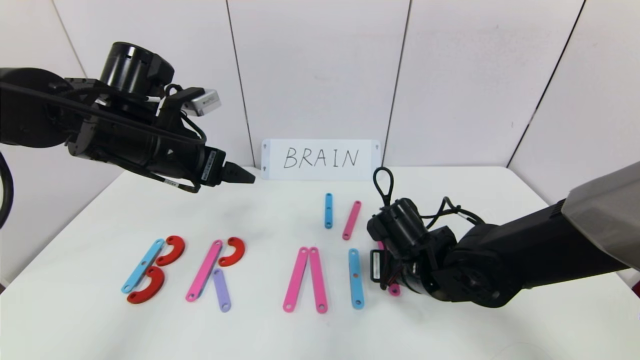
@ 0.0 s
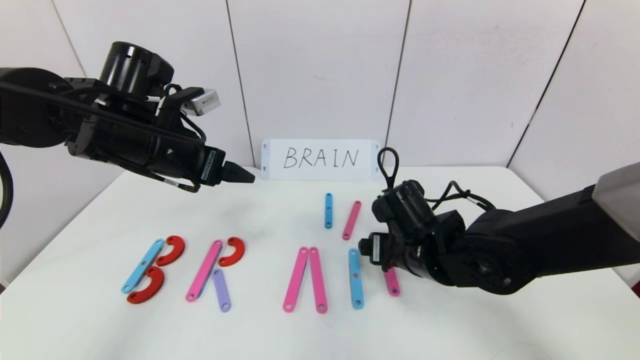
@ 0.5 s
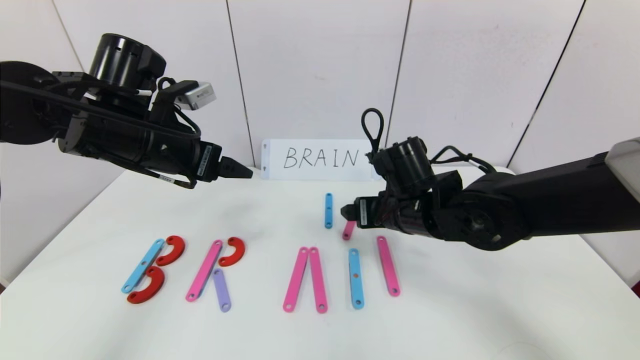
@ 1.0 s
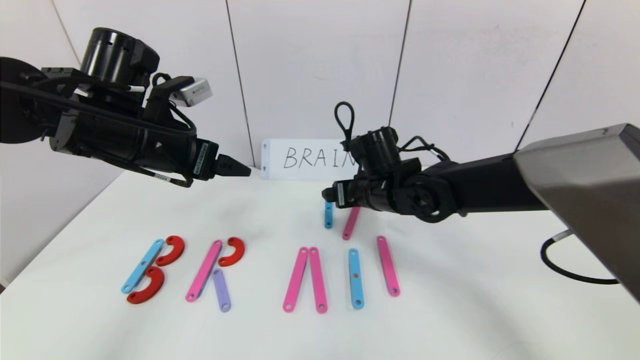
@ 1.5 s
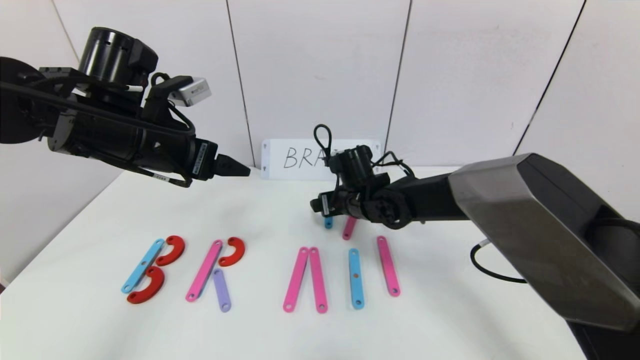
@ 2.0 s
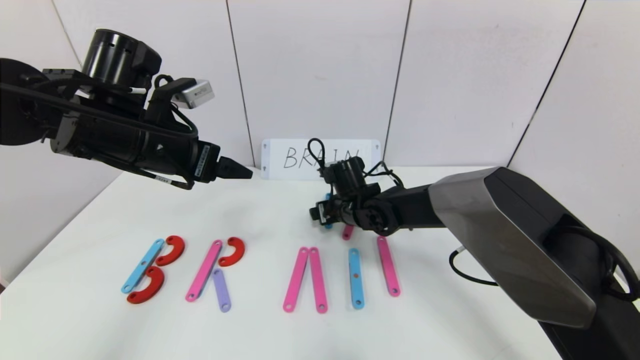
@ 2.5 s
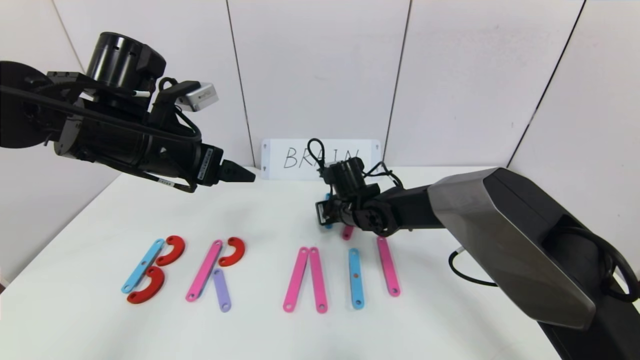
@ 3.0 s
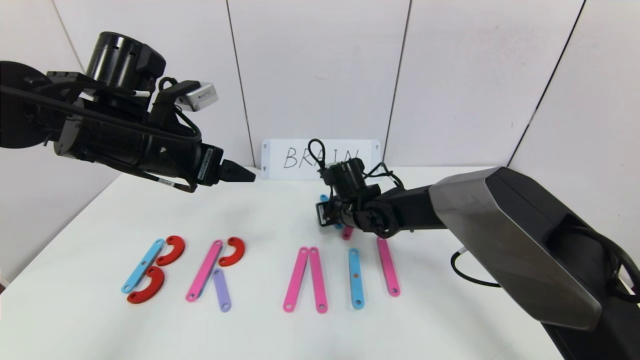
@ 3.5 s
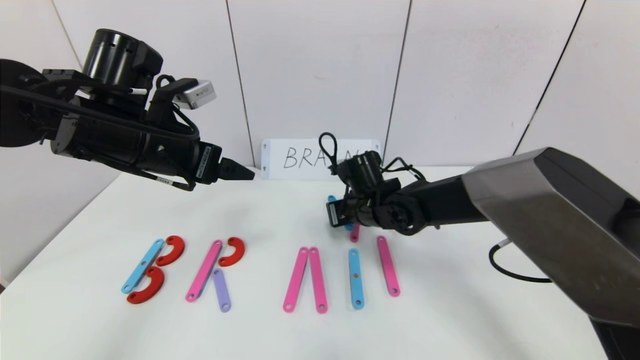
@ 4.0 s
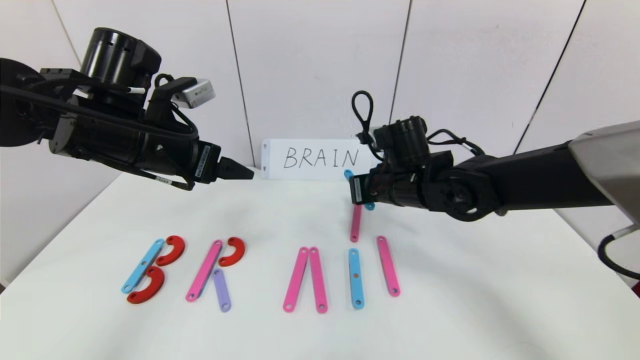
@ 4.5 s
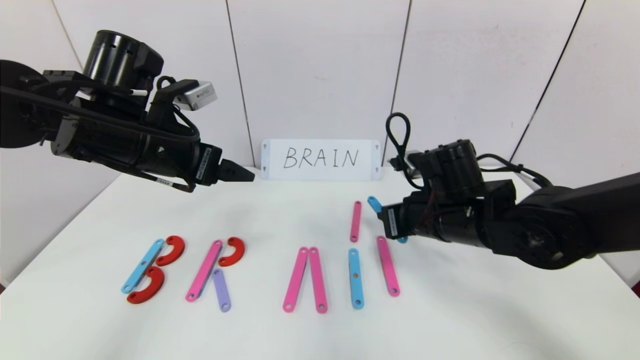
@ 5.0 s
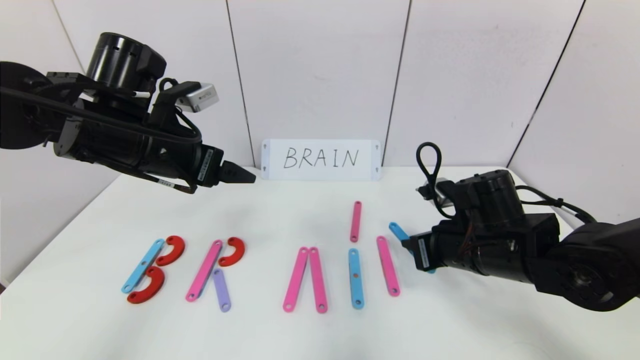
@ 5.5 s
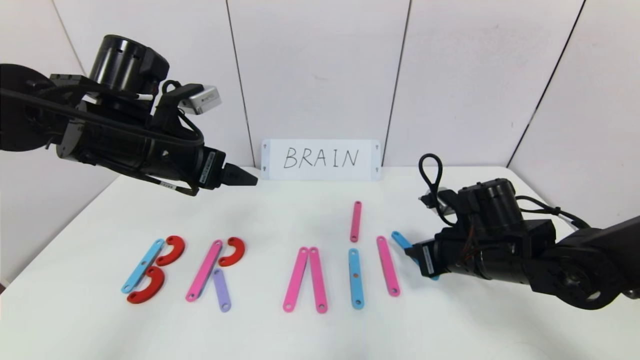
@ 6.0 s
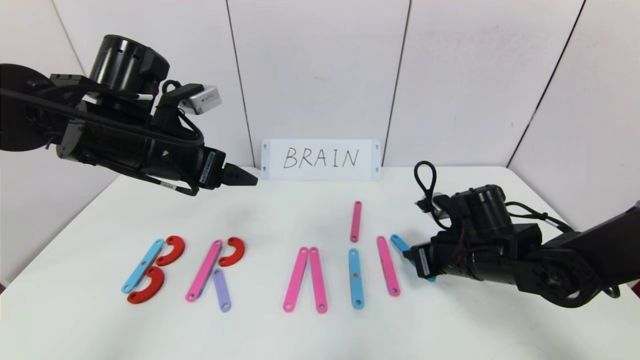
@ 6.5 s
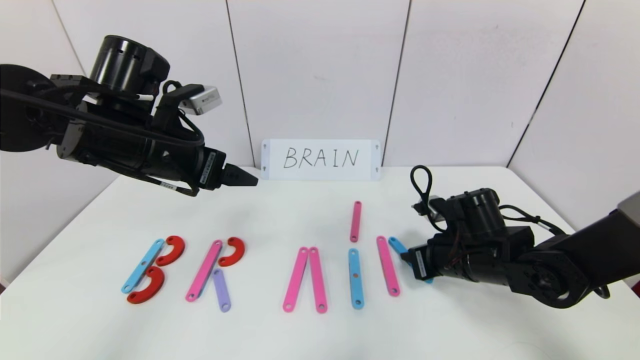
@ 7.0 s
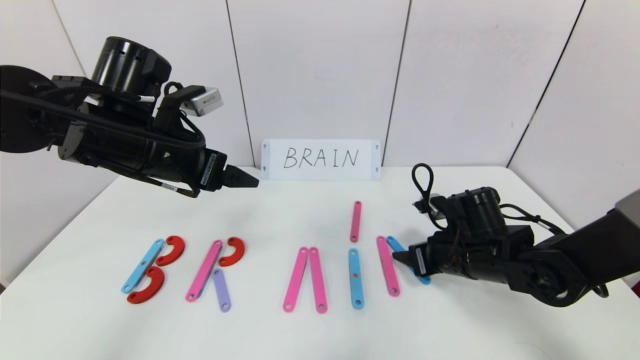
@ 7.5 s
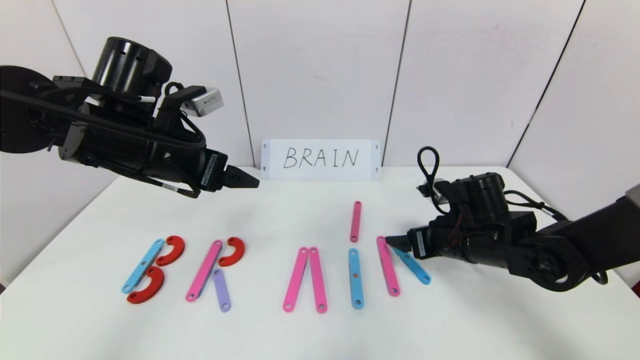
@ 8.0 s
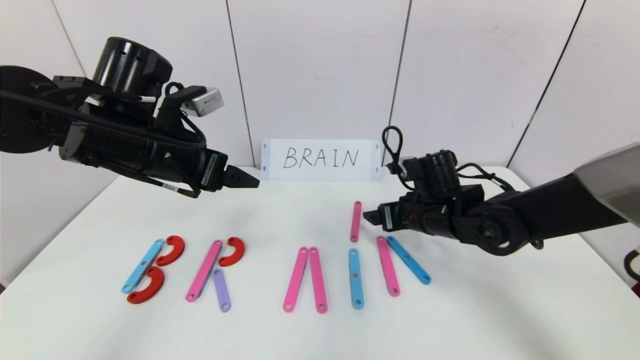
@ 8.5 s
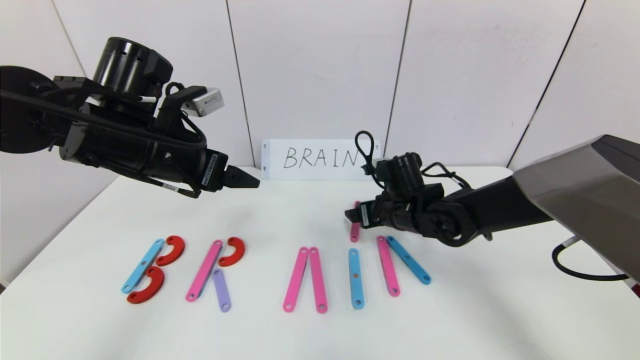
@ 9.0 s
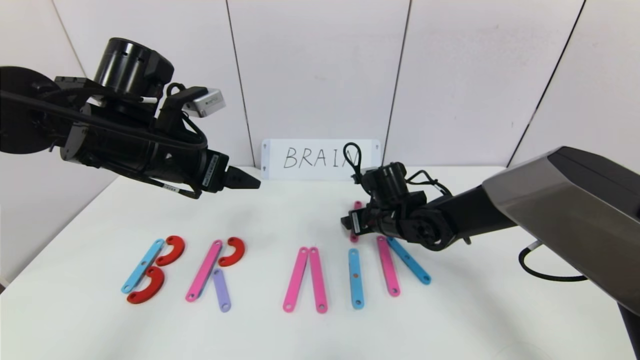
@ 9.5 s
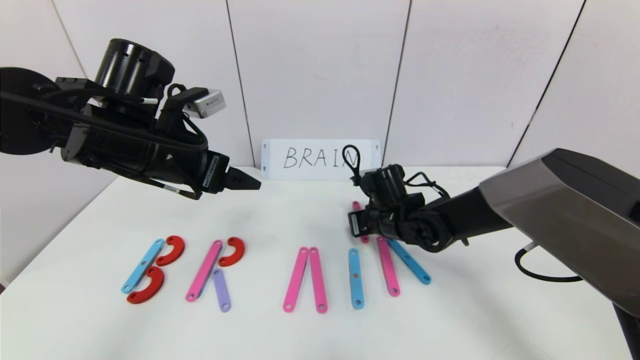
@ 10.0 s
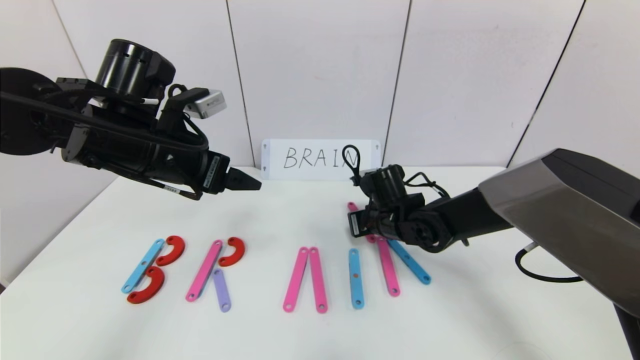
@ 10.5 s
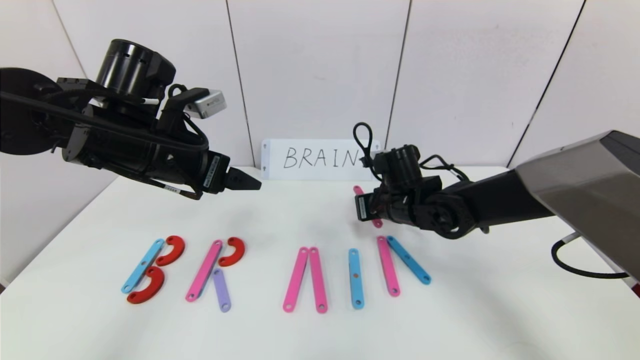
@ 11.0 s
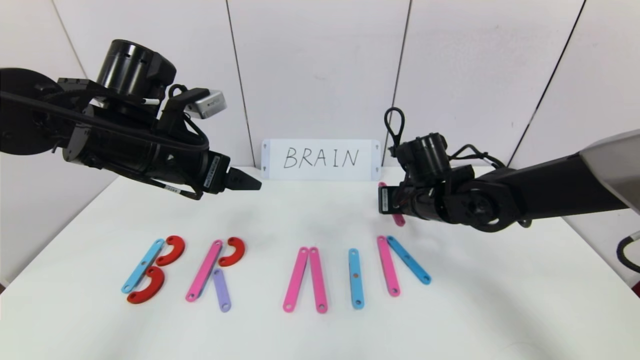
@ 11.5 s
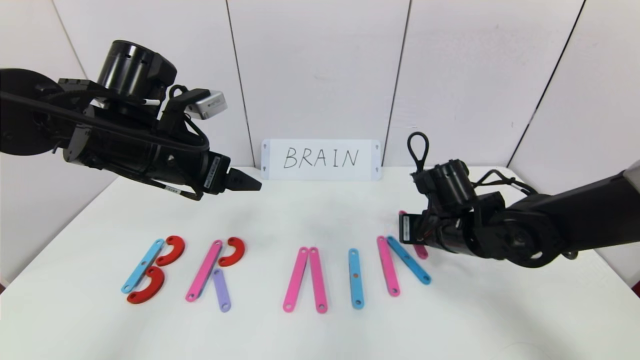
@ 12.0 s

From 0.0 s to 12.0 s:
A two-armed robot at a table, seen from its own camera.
Task of the whole recording: rearrange the word baai as brain.
From 0.0 s to 2.0 s: The right gripper travels forward and to the left by approximately 15 cm, and opens up.
From 2.0 s to 4.0 s: The right gripper closes up.
From 4.0 s to 6.0 s: The right gripper is displaced to the right and backward by approximately 15 cm.
From 6.0 s to 8.0 s: The right gripper opens up.
From 8.0 s to 10.0 s: The right gripper travels to the left and forward by approximately 10 cm, and closes up.
From 10.0 s to 12.0 s: The right gripper heads backward and to the right, covering roughly 10 cm.

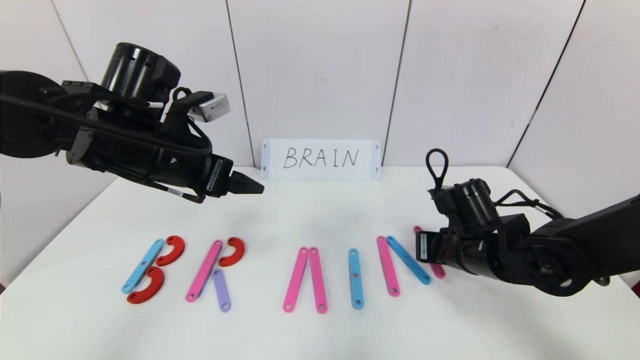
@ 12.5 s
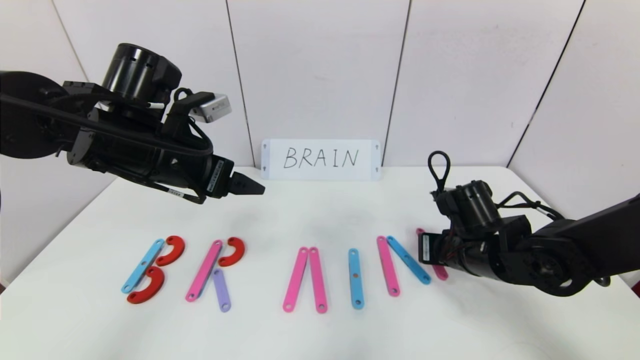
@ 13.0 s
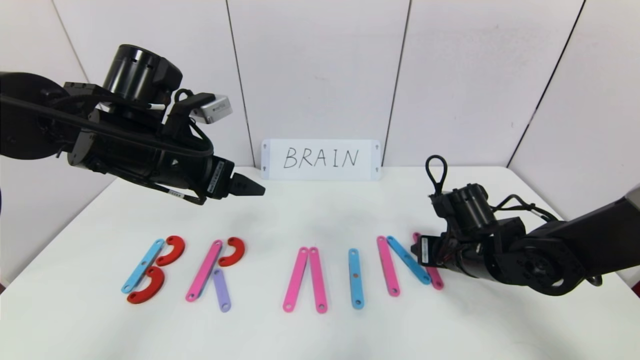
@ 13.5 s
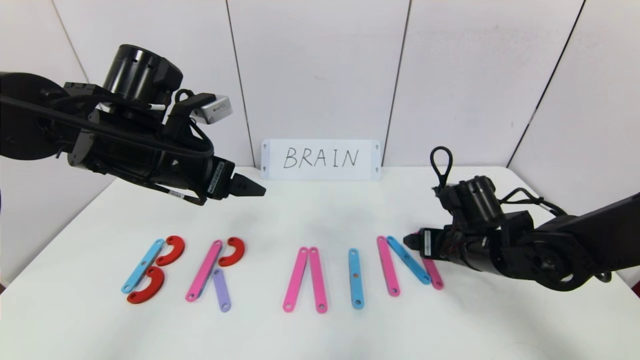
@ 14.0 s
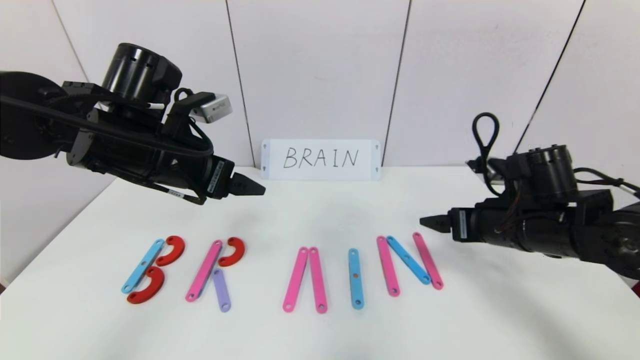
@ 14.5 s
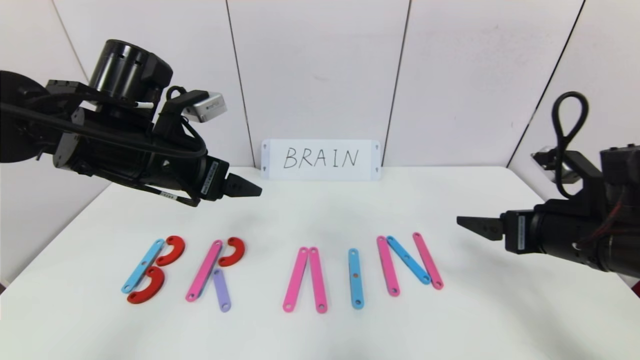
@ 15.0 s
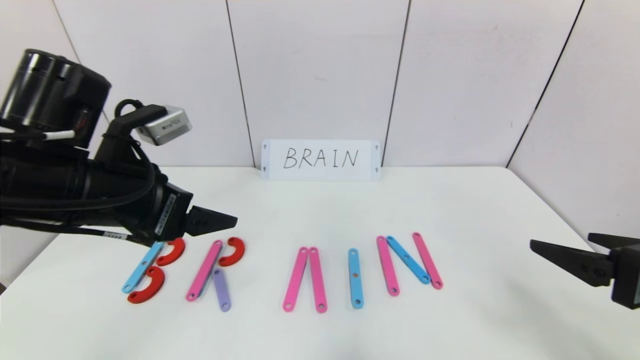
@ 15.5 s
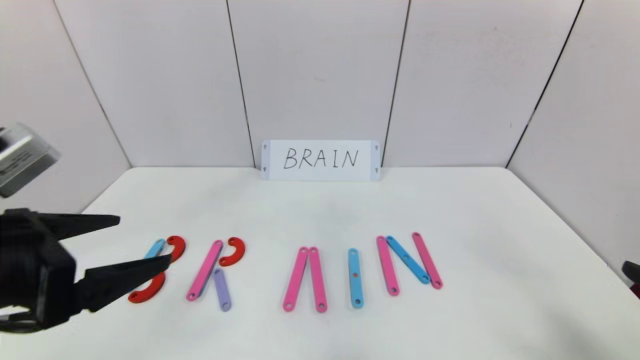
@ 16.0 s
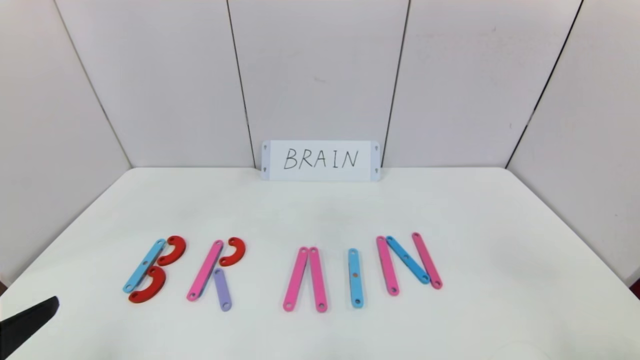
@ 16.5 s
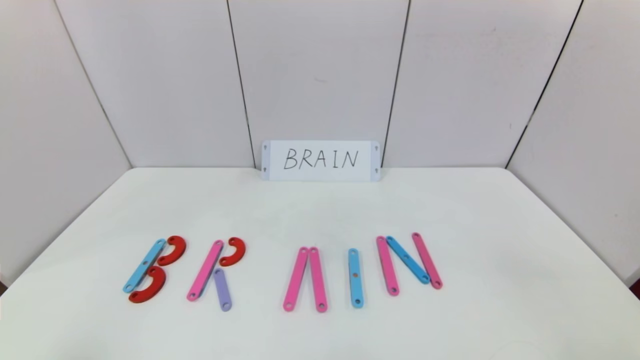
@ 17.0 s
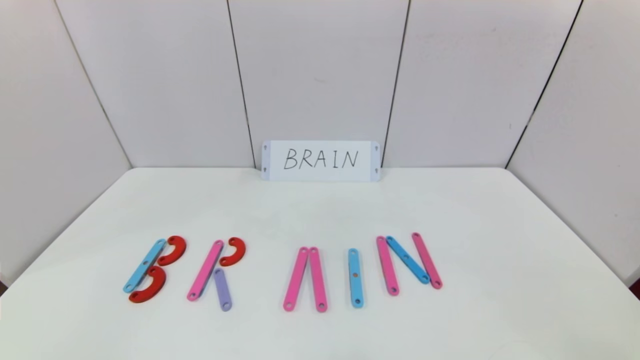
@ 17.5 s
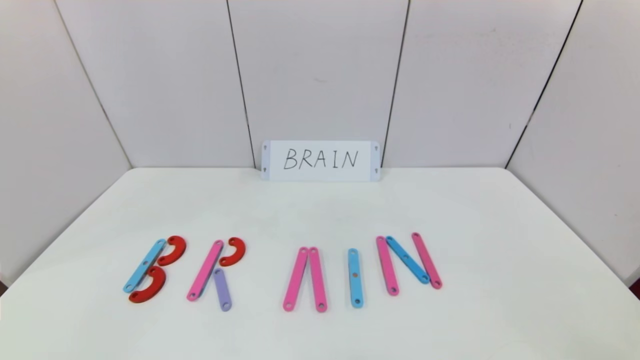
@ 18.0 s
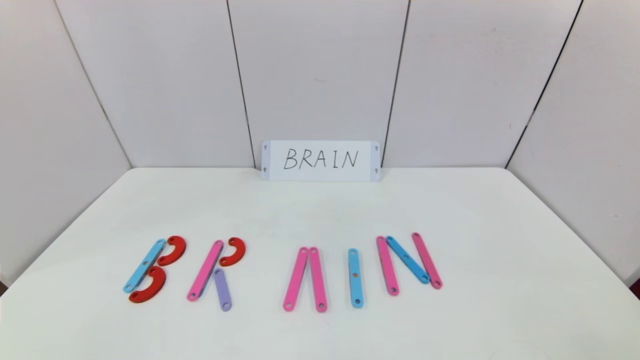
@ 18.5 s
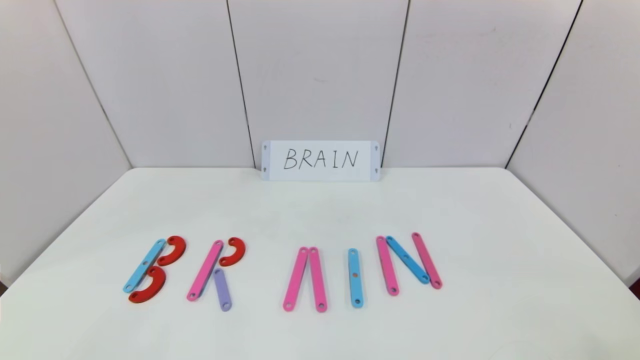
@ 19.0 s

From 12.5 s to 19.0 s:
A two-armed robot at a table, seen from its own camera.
Task of the whole recording: rearrange the word baai as brain.
From 12.5 s to 14.5 s: The right gripper is displaced upward and to the right by about 10 cm, and opens.
From 14.5 s to 17.0 s: The left gripper moves backward and to the left, some 30 cm, while the right gripper is displaced backward by approximately 30 cm.
